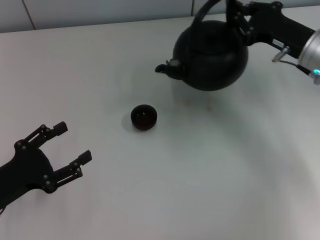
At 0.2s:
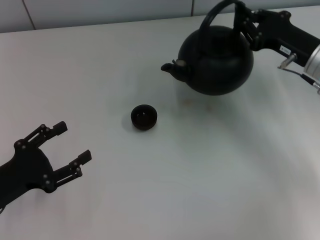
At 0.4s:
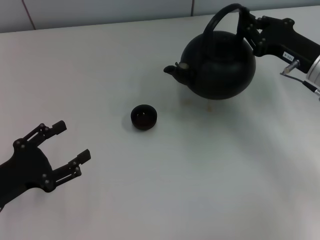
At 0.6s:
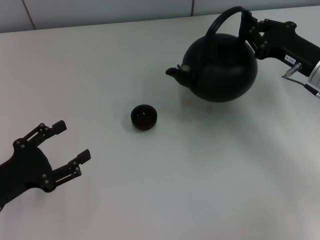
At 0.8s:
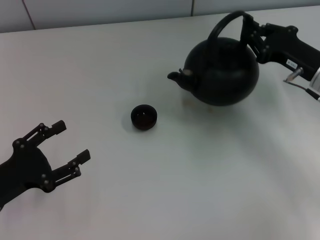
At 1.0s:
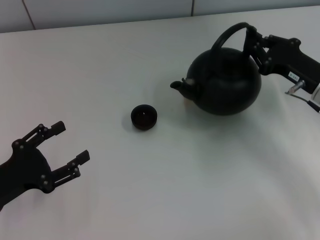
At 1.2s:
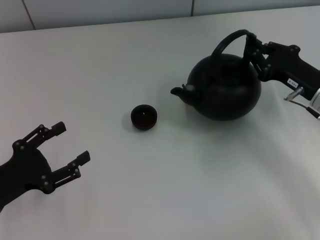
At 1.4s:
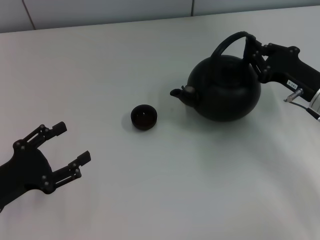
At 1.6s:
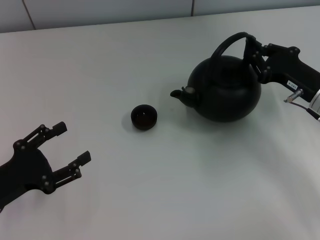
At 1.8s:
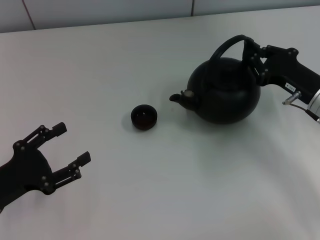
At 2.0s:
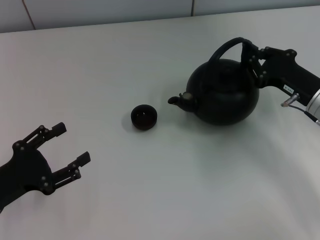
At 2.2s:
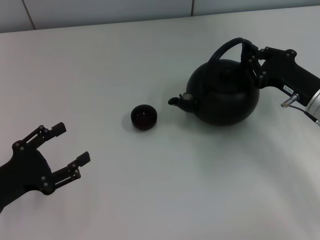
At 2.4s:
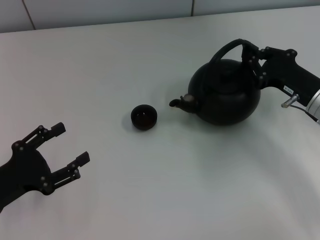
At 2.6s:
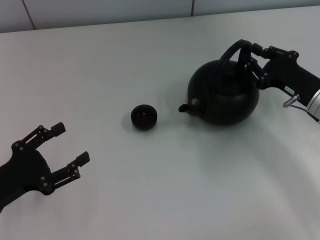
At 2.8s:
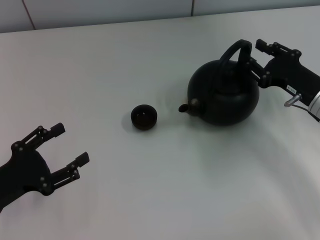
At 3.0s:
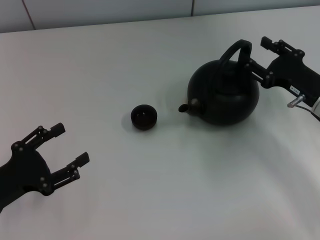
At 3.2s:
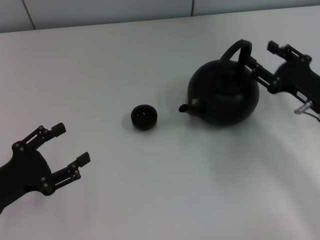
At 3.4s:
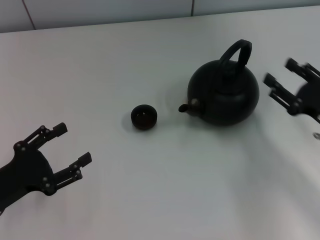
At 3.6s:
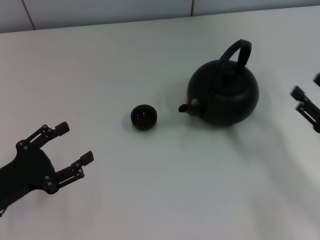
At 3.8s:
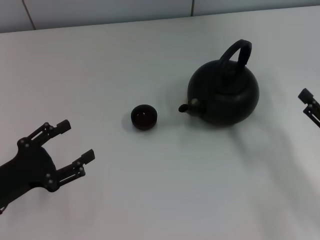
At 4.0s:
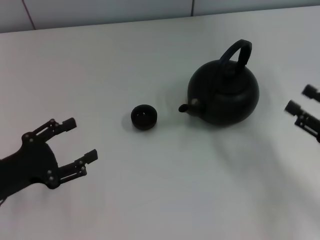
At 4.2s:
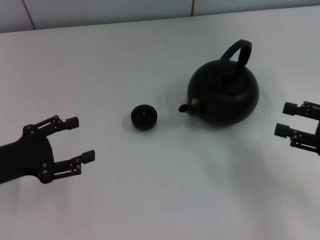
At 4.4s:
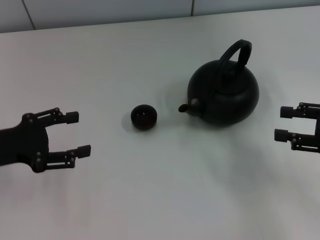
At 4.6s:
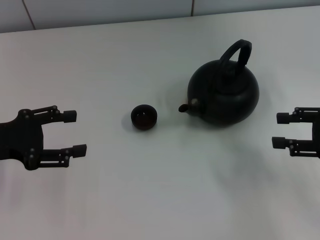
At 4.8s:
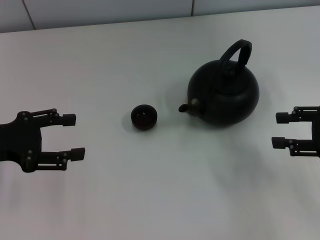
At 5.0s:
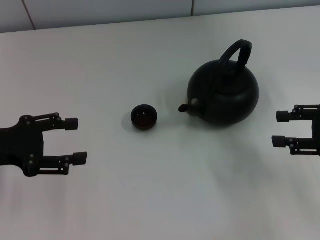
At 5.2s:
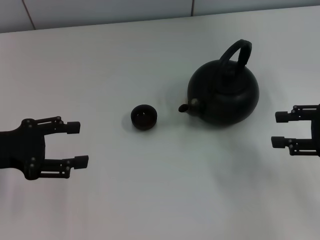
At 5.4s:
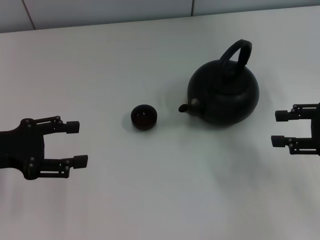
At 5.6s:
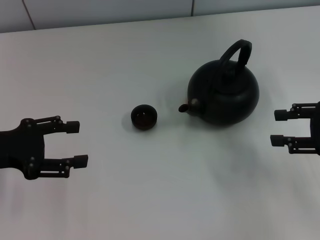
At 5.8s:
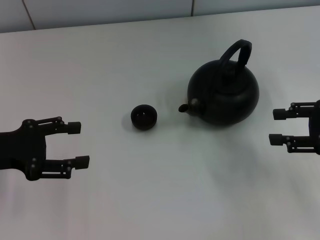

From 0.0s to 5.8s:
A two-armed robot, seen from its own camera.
Task of the whole recording: Grasp the handle of the teapot with one hand and pour tea into the teacup.
Step, from 0.0s to 3.2s: Put down the teapot with the right gripper.
From 0.0s to 1.4s: The right gripper shifts some 5 cm backward.
From 1.4s to 2.8s: The grippers stay close to where they were, moving slightly.
From 2.8s to 4.4s: The left gripper goes about 10 cm forward and upward, while the right gripper goes some 10 cm to the right, backward and upward, and opens up.
From 4.4s to 5.8s: There are only small adjustments of the grippers.

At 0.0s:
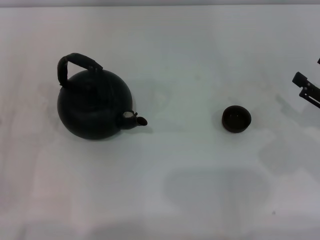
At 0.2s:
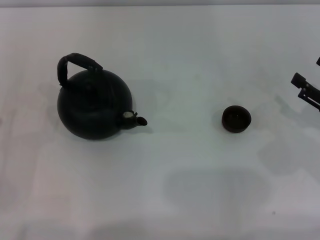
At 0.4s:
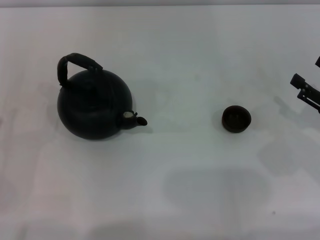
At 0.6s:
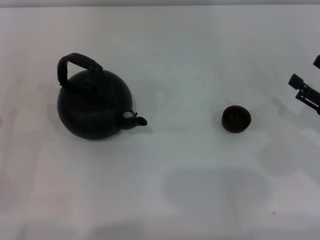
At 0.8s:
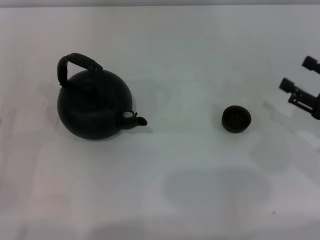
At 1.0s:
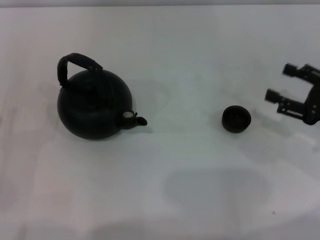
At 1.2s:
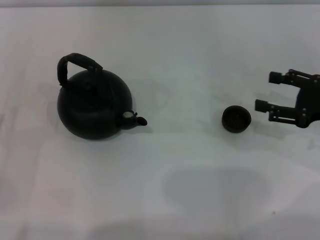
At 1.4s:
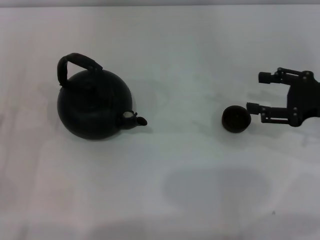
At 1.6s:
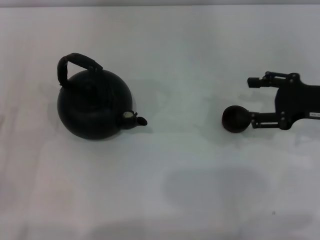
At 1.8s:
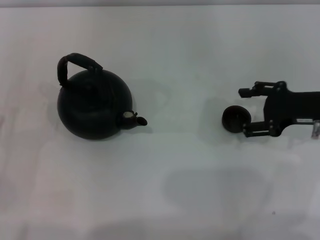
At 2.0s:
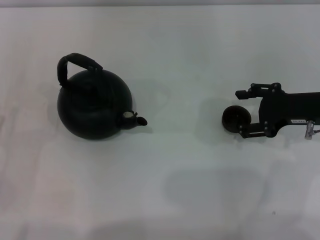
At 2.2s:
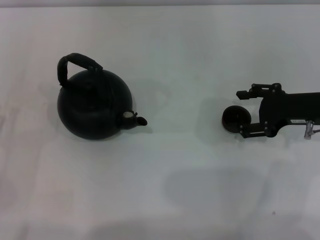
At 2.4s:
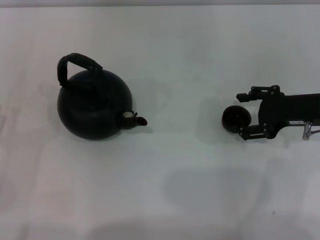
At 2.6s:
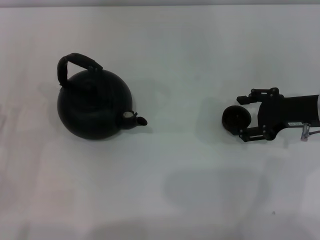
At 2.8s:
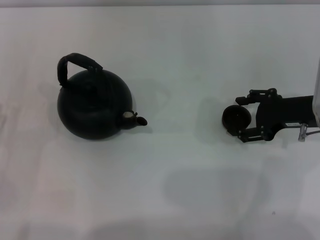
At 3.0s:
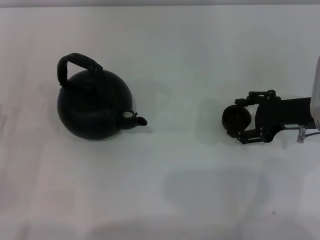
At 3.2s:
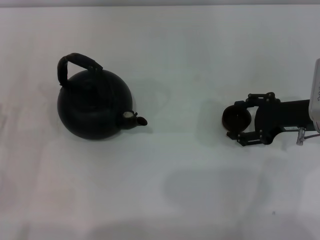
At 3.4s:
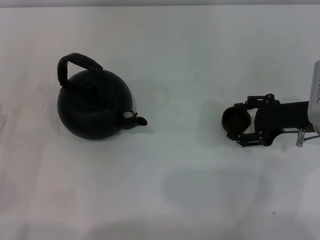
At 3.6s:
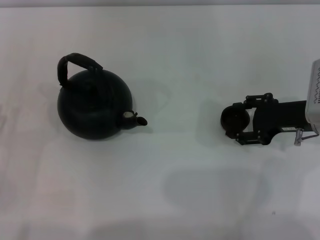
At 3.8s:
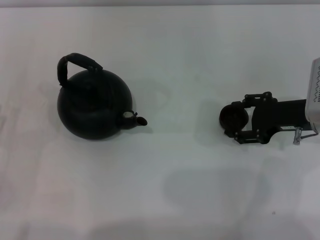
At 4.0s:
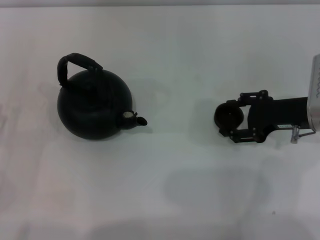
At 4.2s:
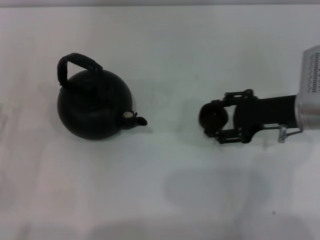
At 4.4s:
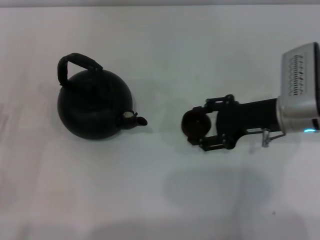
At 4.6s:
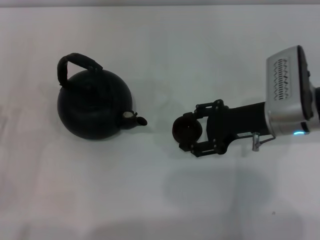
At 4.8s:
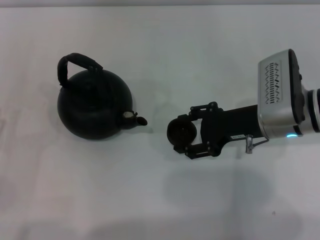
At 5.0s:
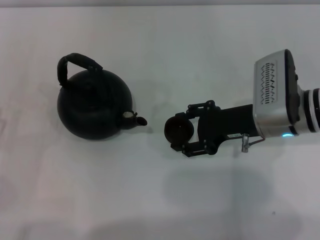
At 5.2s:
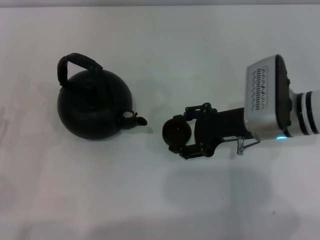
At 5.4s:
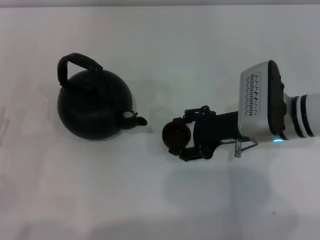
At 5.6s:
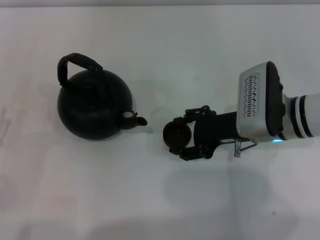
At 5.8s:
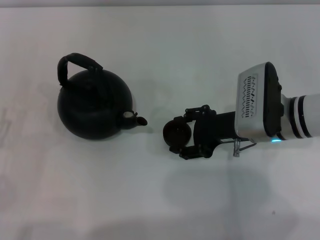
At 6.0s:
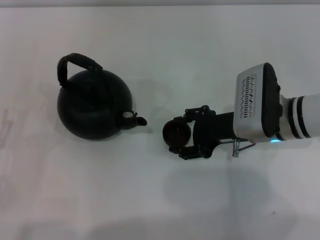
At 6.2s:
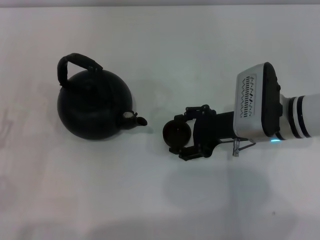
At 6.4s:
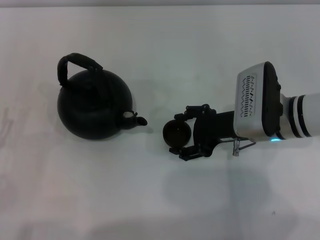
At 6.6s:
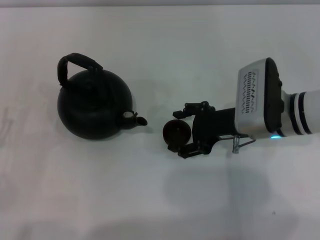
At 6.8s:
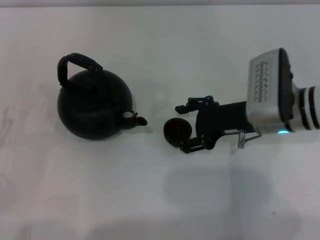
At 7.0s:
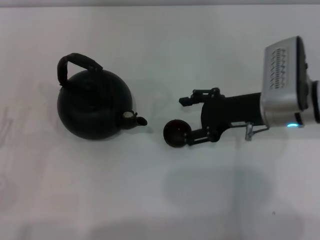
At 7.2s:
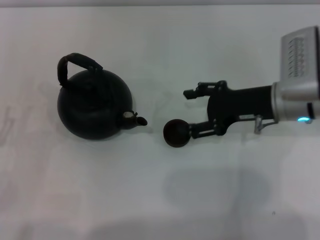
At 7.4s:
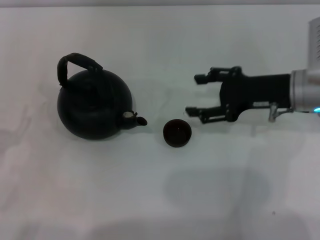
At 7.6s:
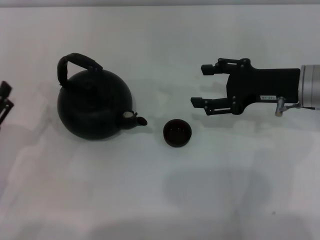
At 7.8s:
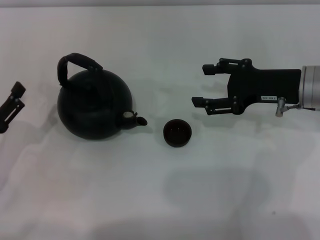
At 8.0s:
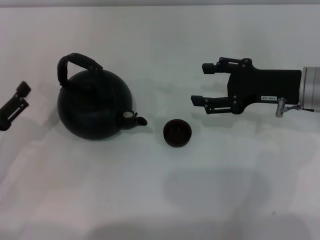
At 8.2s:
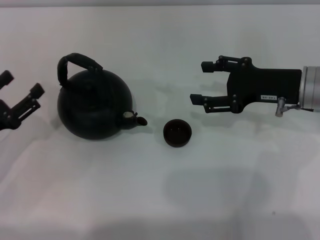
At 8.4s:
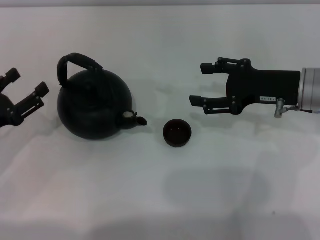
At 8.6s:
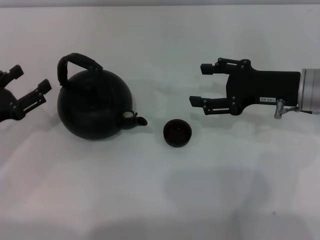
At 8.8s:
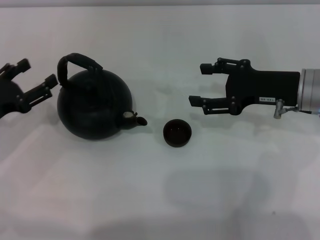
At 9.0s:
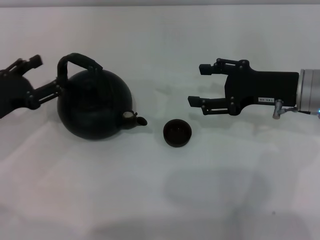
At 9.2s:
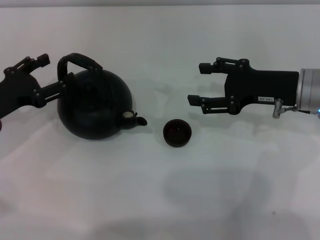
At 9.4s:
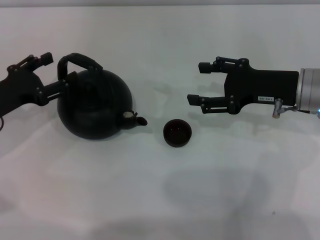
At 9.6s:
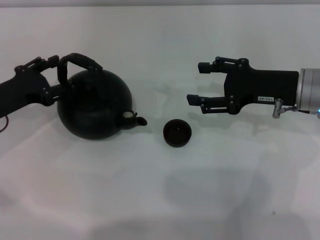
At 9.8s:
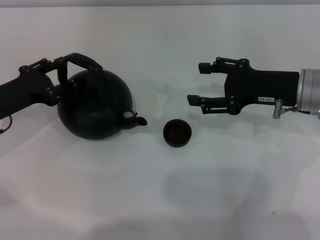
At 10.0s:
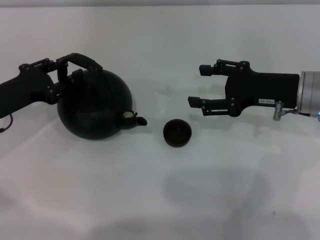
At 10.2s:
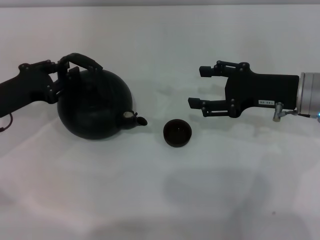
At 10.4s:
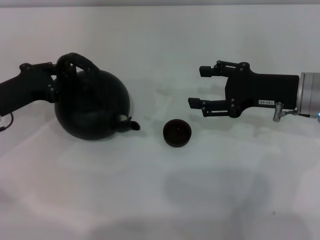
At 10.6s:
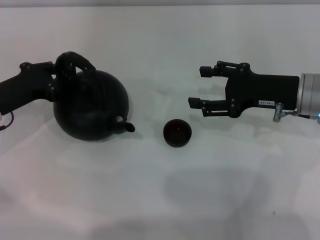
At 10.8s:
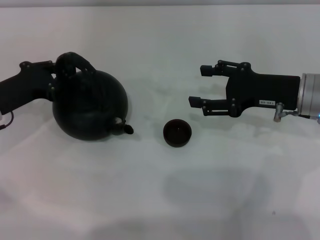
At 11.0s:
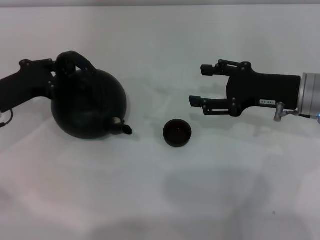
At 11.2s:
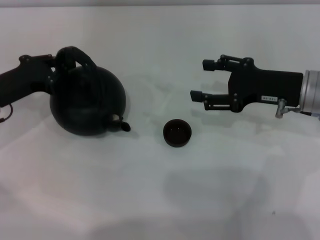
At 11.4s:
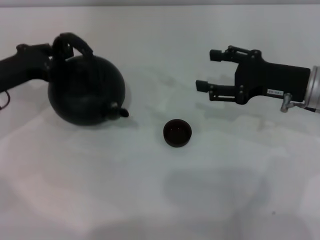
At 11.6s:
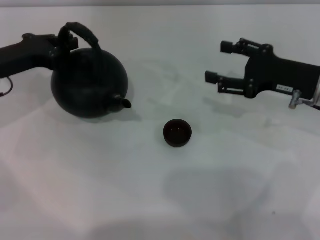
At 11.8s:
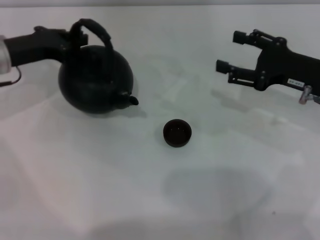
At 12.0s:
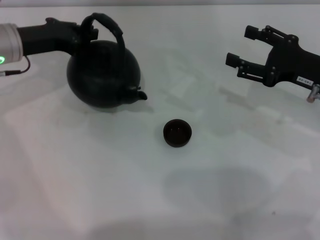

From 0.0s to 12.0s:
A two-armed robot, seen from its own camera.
Task of the whole recording: Grasp the handle of the teapot with one hand and pour tea into the teacup.
Step, from 0.0s to 4.2s: Pick up the teacup with the right gripper.
Step, from 4.4s to 6.8s: Place the teacup in the center of view with the right gripper.
Step, from 7.2s to 11.6s: Pick up the teapot with the left gripper.
From 0.0s to 1.6s: The right gripper shifts about 10 cm forward and upward.
From 1.6s to 3.0s: The grippers move only a little.
From 3.0s to 4.4s: The right gripper goes roughly 5 cm to the left, and closes its fingers.
From 4.4s to 6.0s: There are only small adjustments of the grippers.
From 6.0s to 7.6s: The right gripper travels to the right and upward by approximately 10 cm, and opens up.
From 7.6s to 9.0s: The left gripper moves forward, some 10 cm.
From 9.0s to 10.4s: The left gripper closes its fingers.
From 10.4s to 12.0s: The left gripper shifts roughly 10 cm forward and upward.

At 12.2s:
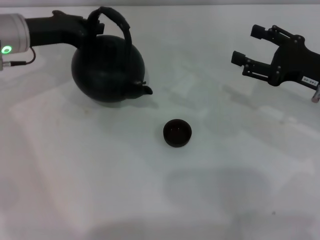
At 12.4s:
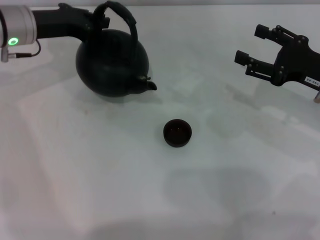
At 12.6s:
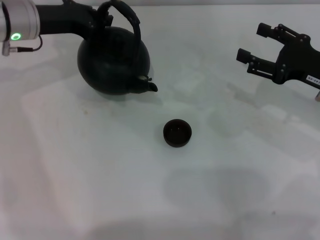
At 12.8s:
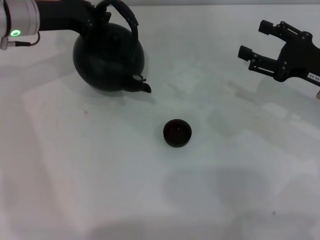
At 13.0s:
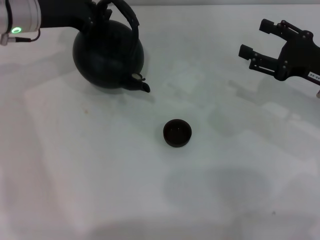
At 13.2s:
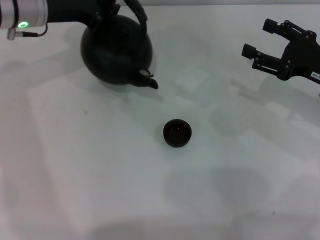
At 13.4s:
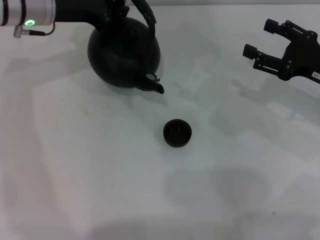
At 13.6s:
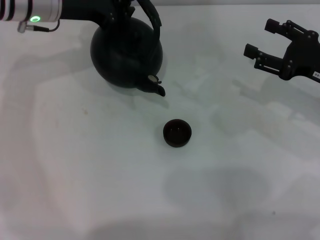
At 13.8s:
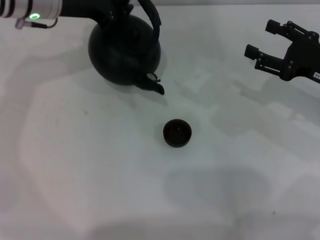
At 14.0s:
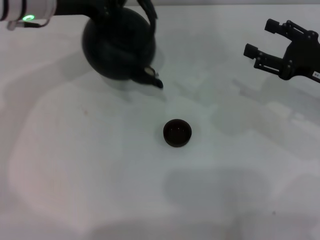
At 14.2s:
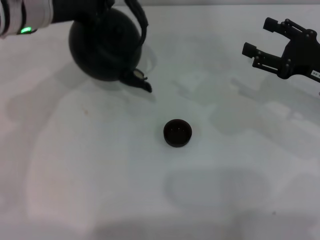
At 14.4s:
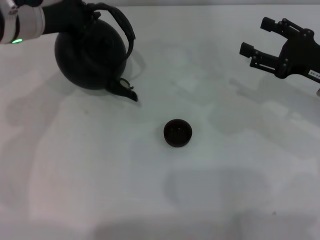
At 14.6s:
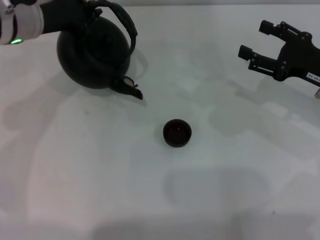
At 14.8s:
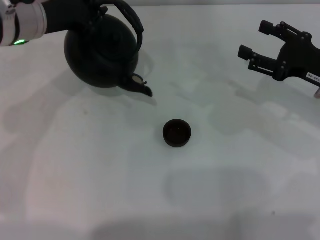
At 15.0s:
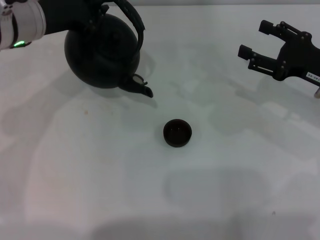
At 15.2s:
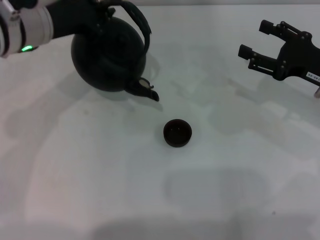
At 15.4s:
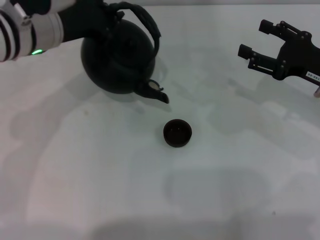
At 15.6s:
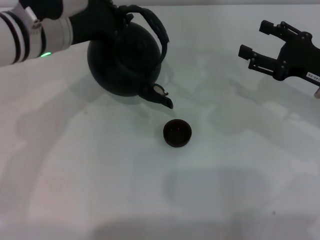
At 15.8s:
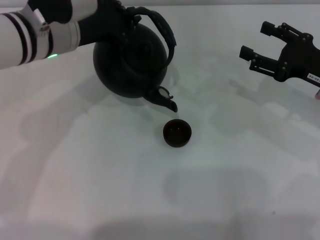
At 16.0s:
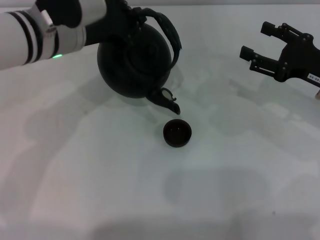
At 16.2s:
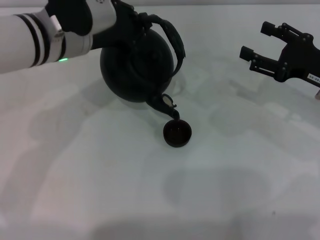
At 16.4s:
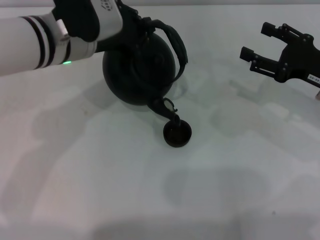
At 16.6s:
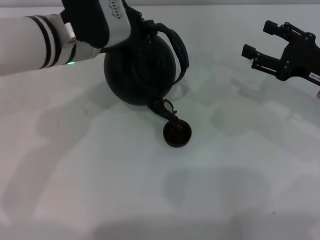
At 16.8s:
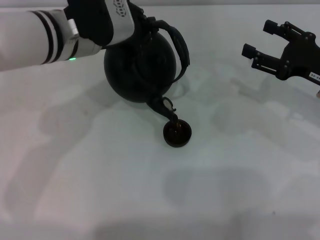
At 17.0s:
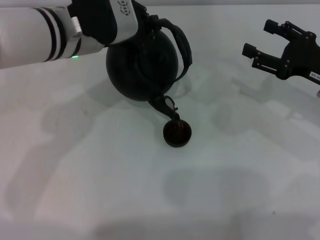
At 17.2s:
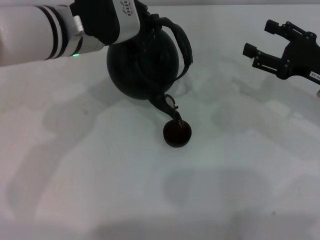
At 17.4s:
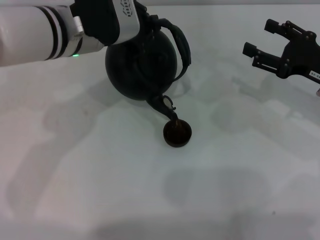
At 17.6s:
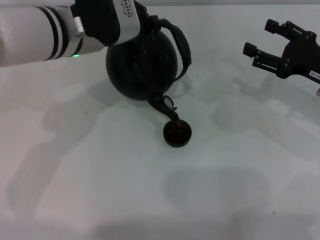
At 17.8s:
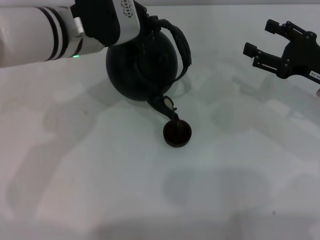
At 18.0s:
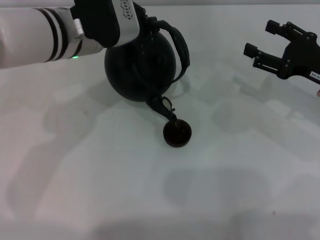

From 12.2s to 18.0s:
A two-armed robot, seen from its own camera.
Task of the whole recording: Grasp the handle of the teapot with one hand and pour tea into the teacup.
From 12.2s to 13.6s: The left gripper moves to the right, some 5 cm.
From 13.6s to 15.0s: The left gripper goes some 5 cm backward.
From 15.0s to 16.6s: The left gripper heads to the right, covering approximately 5 cm.
From 16.6s to 18.0s: Both grippers stay about where they are.
